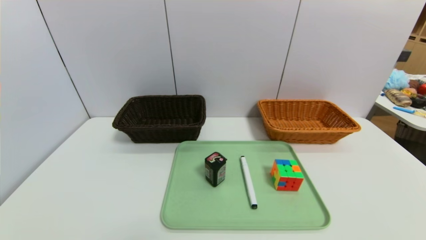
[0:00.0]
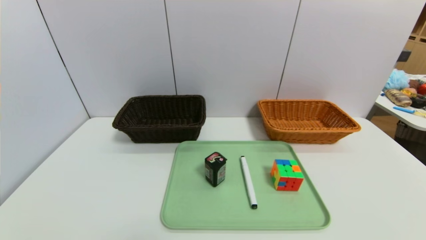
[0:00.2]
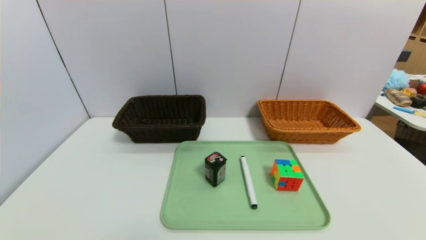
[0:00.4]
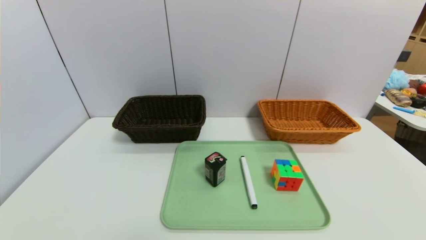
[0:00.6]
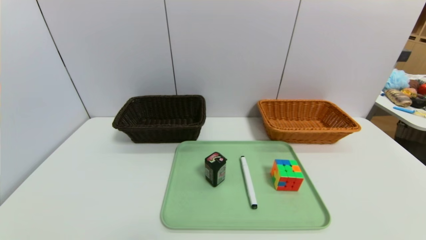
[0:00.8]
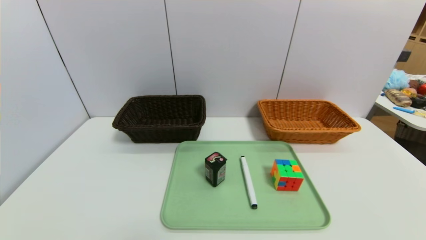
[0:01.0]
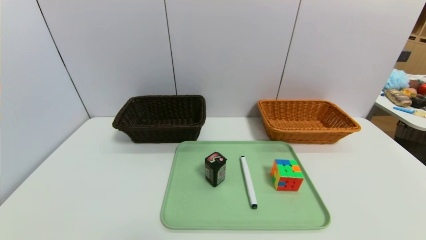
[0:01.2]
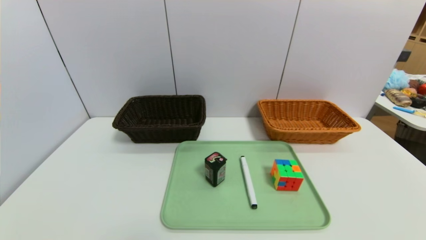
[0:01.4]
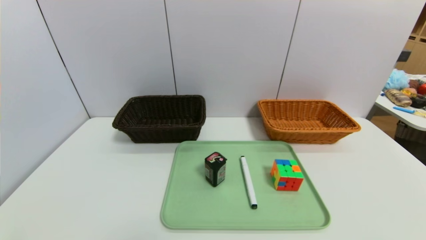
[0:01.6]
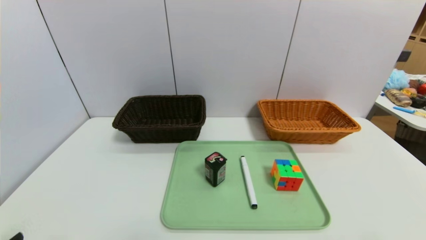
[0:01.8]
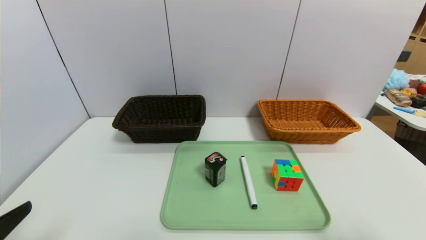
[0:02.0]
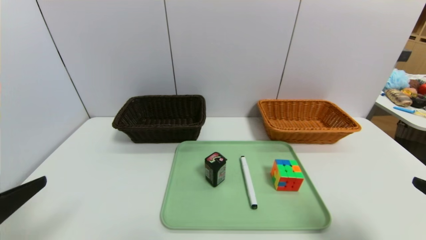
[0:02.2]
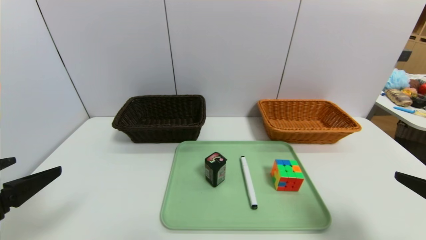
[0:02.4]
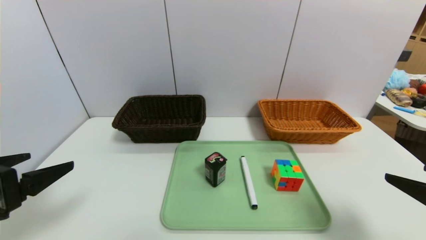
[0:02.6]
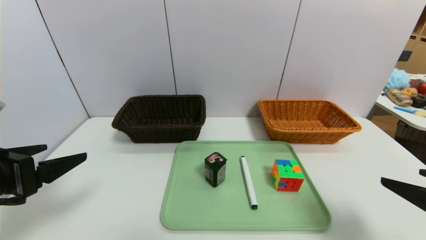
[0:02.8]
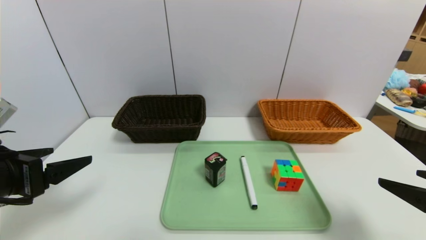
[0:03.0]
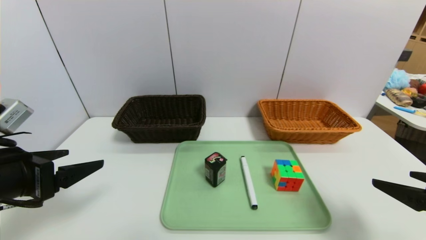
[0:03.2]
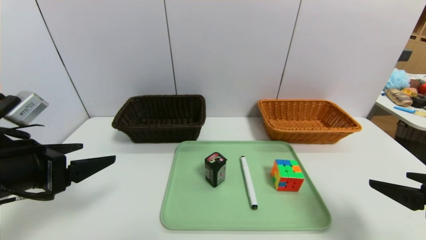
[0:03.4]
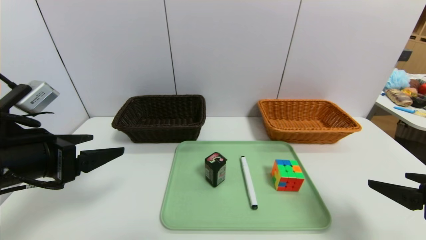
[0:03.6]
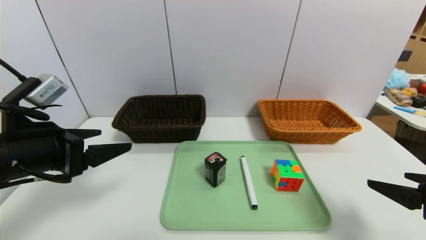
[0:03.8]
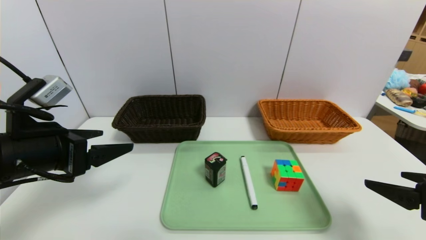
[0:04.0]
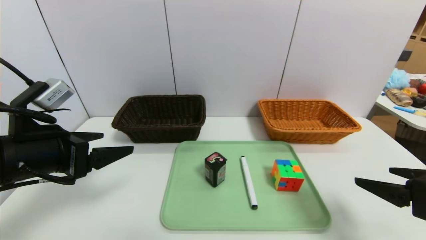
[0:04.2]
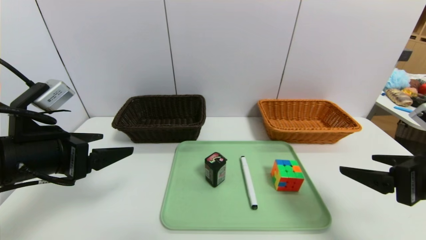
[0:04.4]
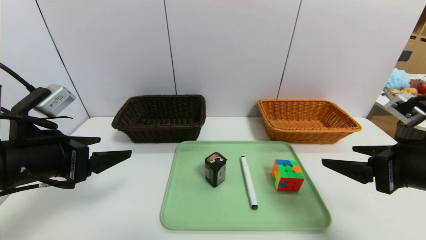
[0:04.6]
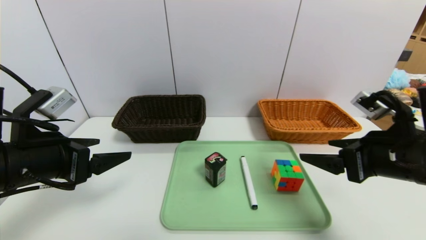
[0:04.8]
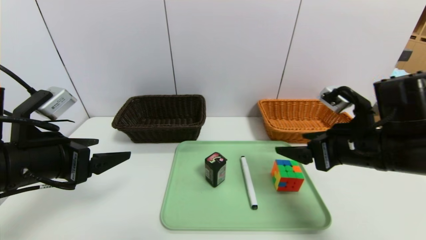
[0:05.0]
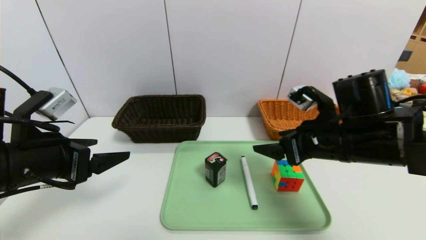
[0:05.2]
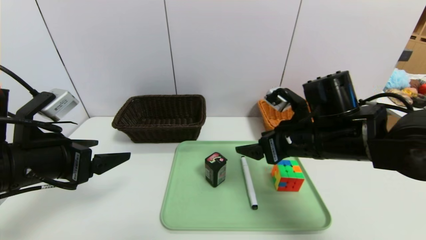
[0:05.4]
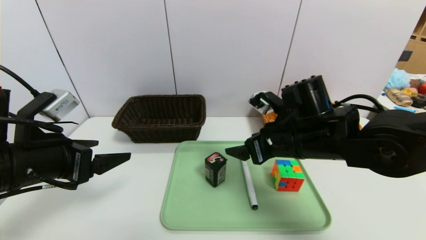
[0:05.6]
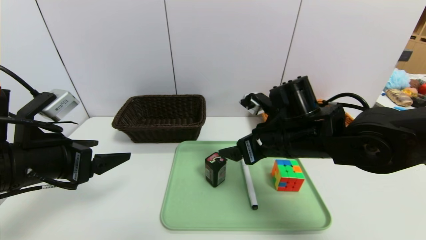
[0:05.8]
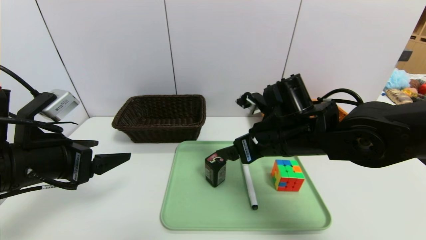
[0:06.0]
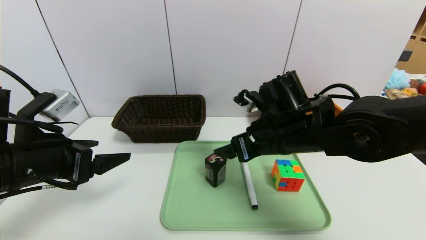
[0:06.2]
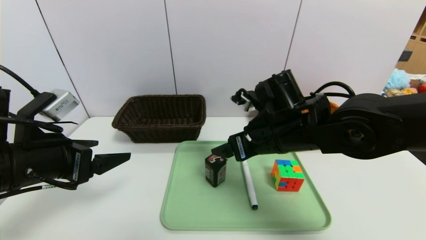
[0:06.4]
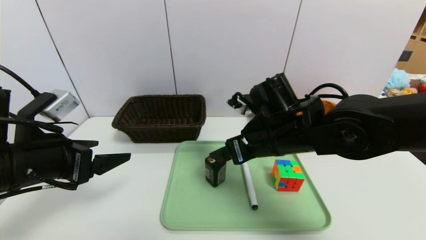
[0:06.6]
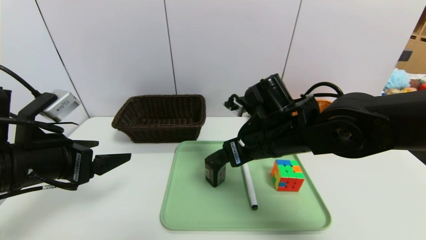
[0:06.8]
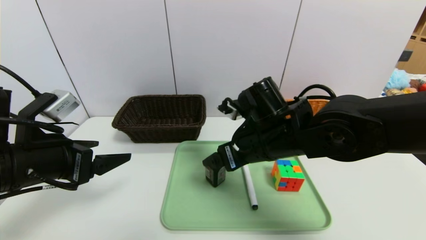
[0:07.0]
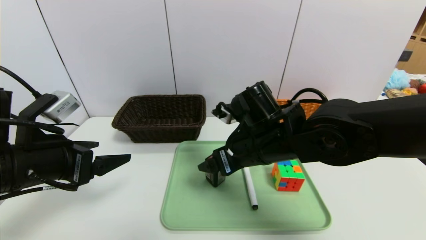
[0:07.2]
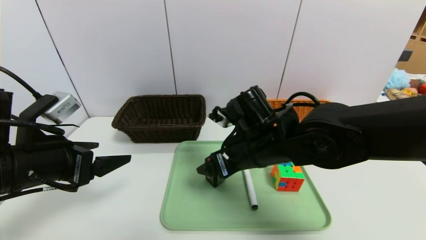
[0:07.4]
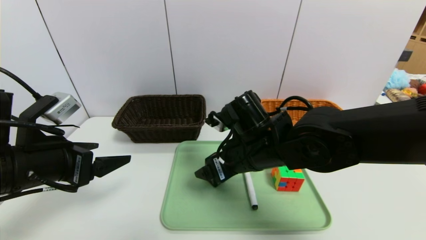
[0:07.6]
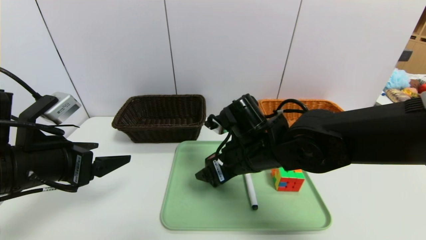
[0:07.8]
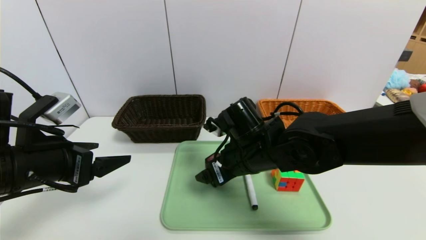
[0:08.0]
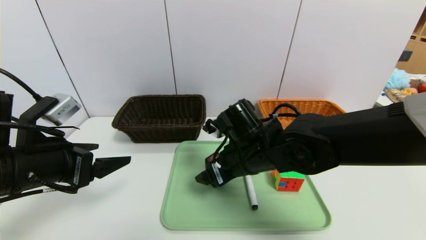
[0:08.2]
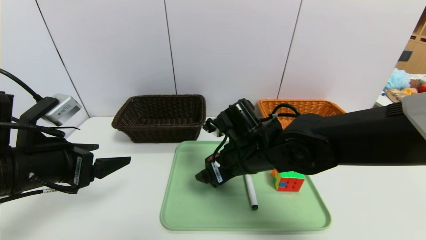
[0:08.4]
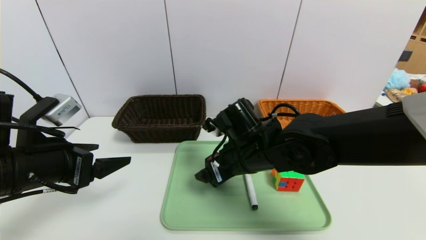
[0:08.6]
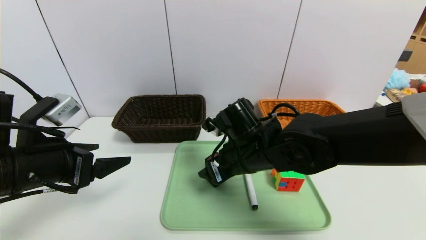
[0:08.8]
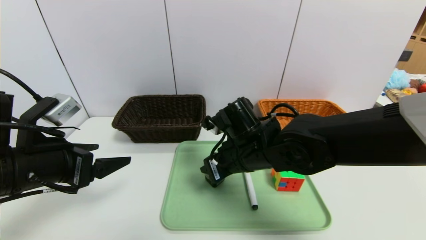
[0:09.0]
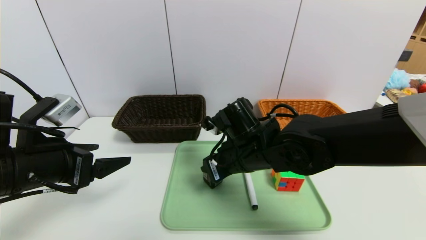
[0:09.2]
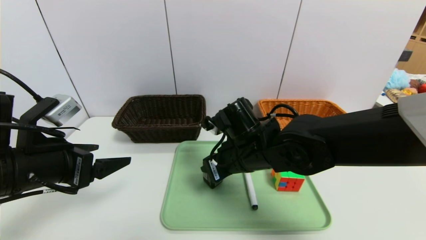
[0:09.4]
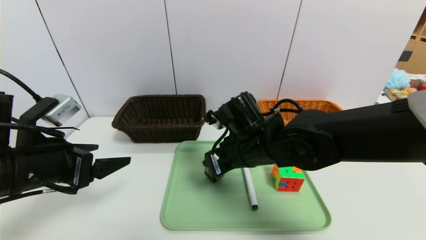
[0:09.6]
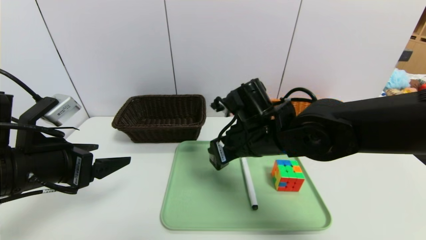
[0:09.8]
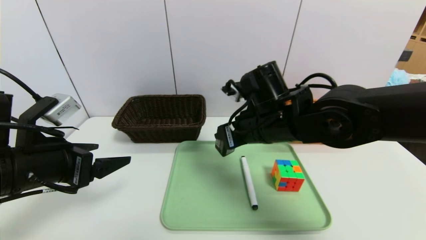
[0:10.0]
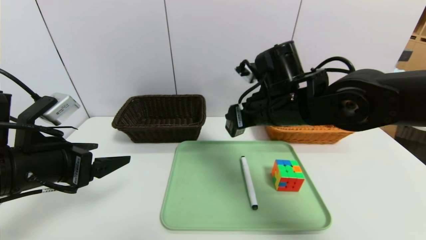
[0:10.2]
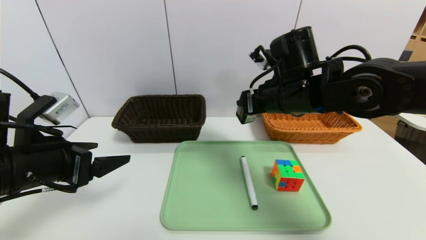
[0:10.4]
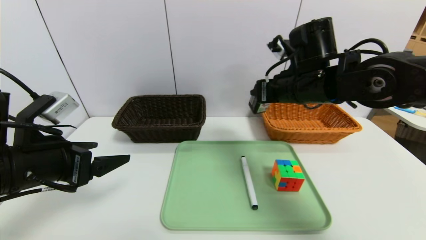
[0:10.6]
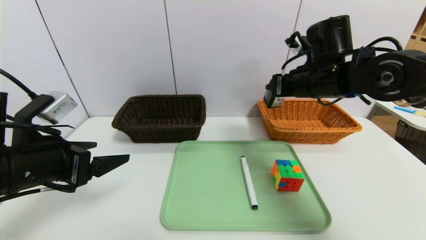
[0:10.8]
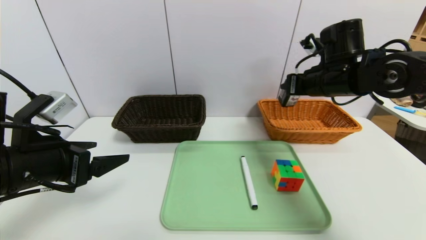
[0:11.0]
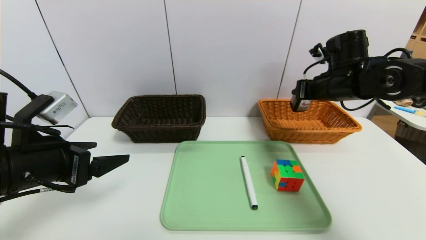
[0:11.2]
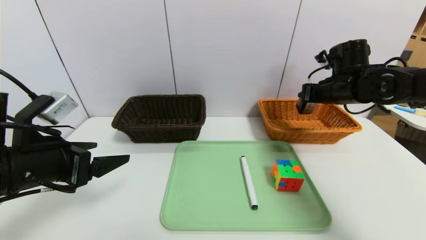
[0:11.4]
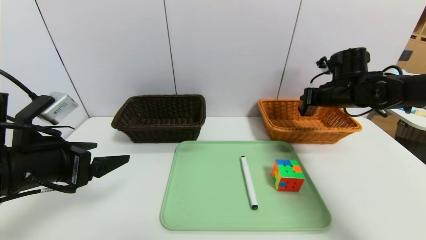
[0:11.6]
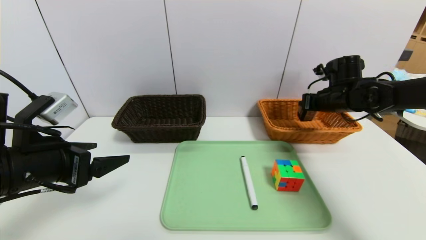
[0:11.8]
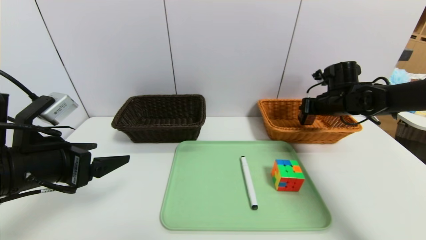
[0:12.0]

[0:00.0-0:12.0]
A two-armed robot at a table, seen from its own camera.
Task of the whole recording: place the food in the right basket with the right gripper, and place the non food items in the left basket with the left gripper.
0:01.6 to 0:03.0: The right gripper shifts roughly 15 cm forward. The left gripper shifts some 20 cm forward and upward.
0:03.0 to 0:04.4: The right gripper moves approximately 5 cm. The left gripper shifts by roughly 5 cm.
0:04.4 to 0:06.0: The right gripper is displaced to the left and forward by some 20 cm.
0:06.0 to 0:07.6: The right gripper moves to the left, approximately 5 cm.
0:07.6 to 0:09.0: The right gripper closes.
0:09.0 to 0:10.4: The right gripper travels upward and to the right by approximately 10 cm.
0:10.4 to 0:12.0: The right gripper shifts roughly 25 cm to the right, forward and downward.

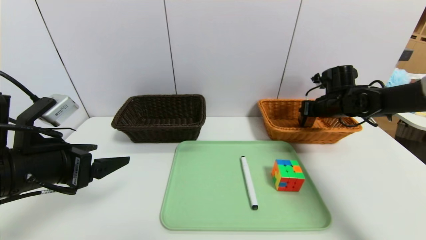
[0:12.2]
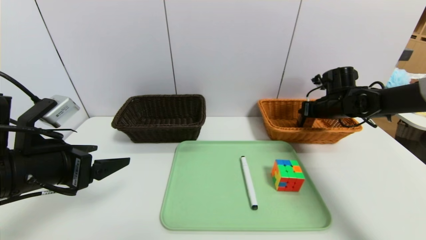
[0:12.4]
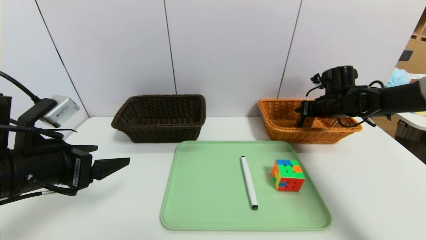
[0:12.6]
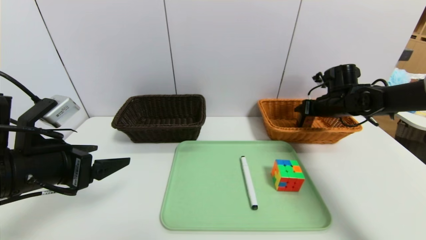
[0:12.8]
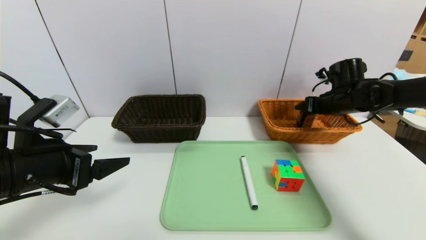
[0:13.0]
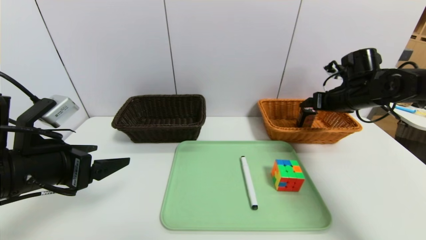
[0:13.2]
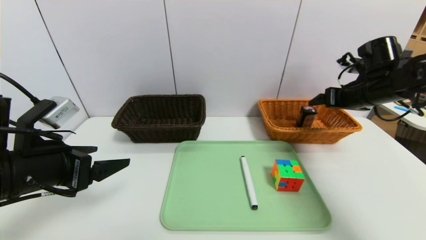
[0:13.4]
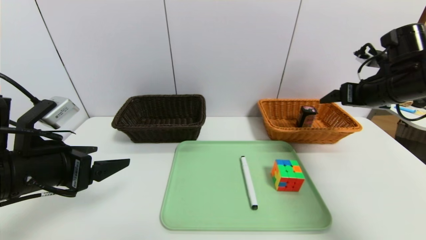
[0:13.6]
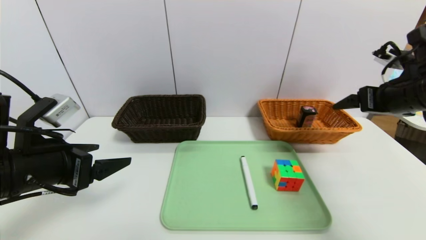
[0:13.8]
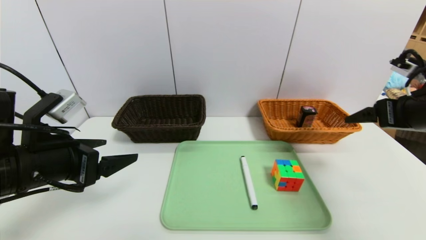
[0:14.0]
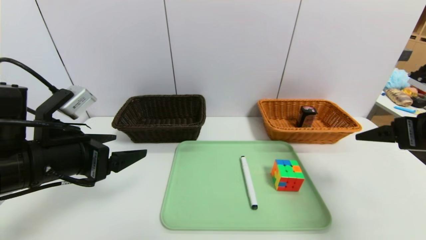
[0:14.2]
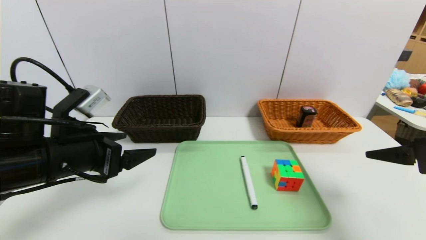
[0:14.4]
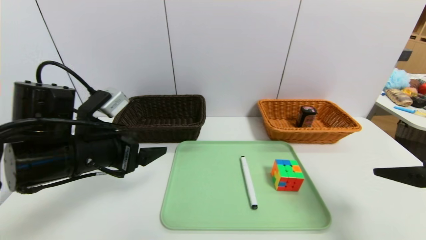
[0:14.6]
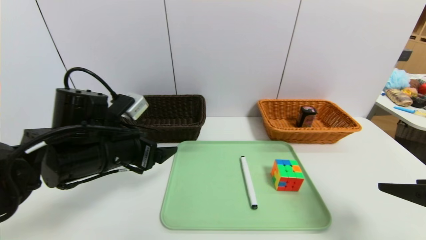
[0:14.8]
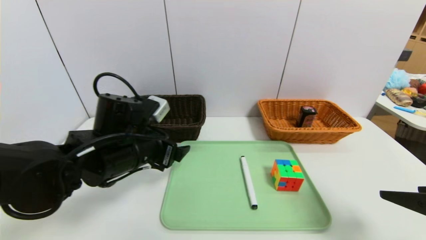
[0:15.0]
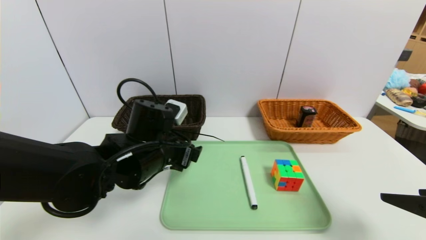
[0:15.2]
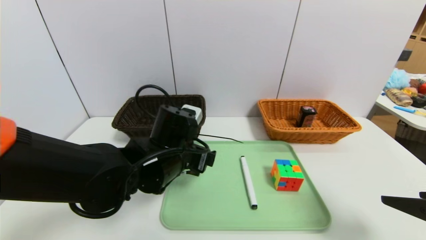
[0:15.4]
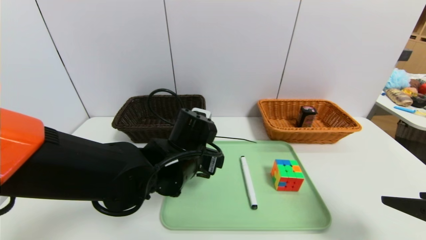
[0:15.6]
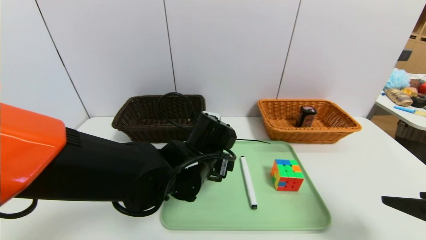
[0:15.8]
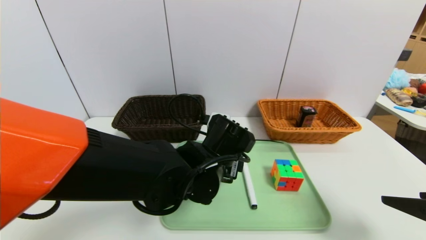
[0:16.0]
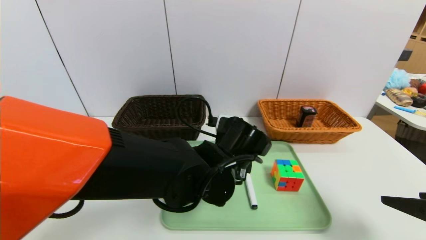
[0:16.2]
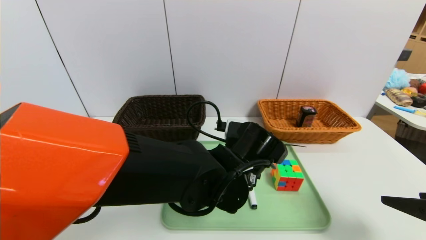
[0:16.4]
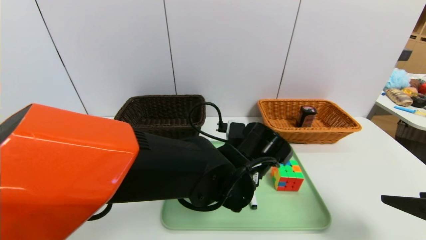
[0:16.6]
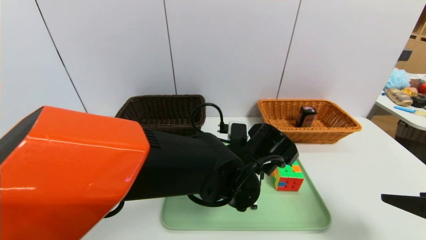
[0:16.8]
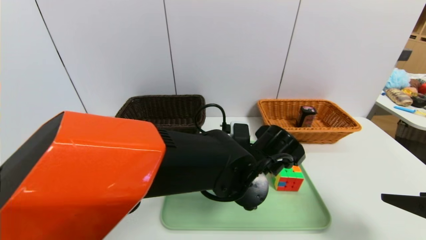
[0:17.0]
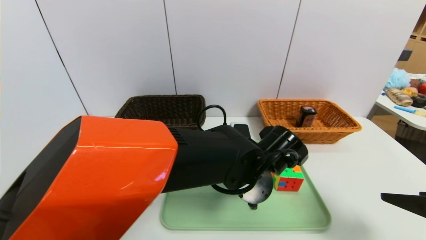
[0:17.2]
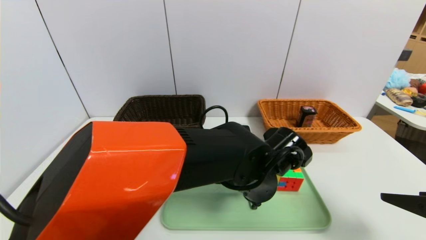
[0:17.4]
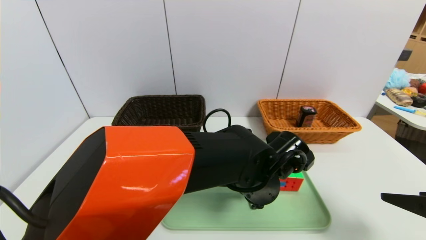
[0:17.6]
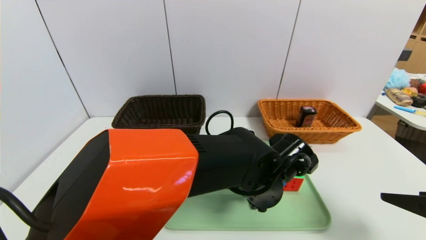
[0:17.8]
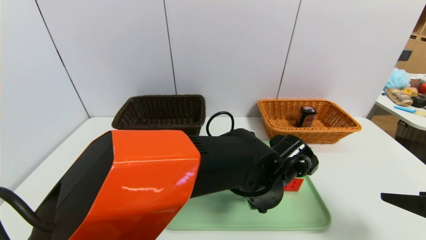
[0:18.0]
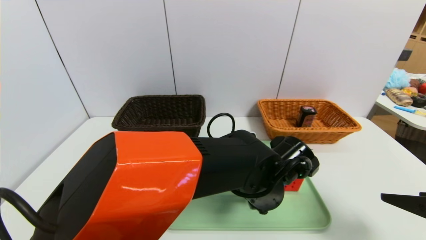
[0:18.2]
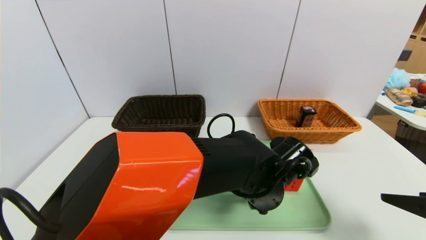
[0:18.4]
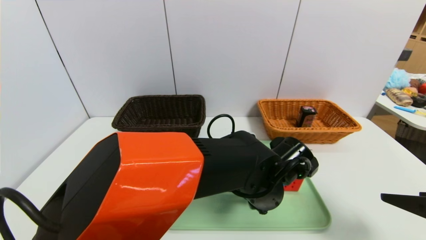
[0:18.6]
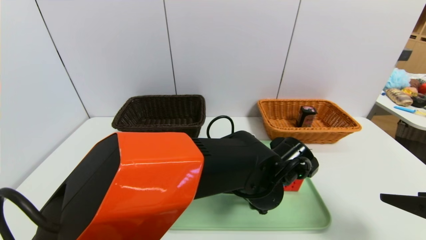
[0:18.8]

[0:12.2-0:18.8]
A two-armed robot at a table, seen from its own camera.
Task of the whole recording: place the food in the right basket with the right gripper, and place the non food items in the left basket with the left gripper.
0:12.2 to 0:13.8: The right gripper heads backward and upward, covering approximately 20 cm, and opens its fingers.
0:13.8 to 0:15.4: The left gripper heads to the right and forward, covering approximately 20 cm; the right gripper goes some 20 cm backward.
0:15.4 to 0:17.2: The left gripper is displaced to the right by some 15 cm.
0:17.2 to 0:18.8: There are only small adjustments of the grippers.
